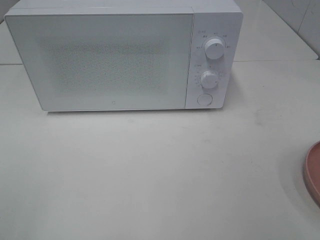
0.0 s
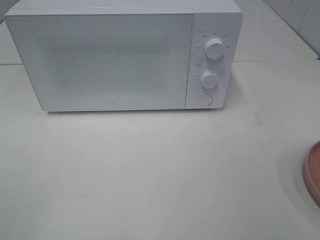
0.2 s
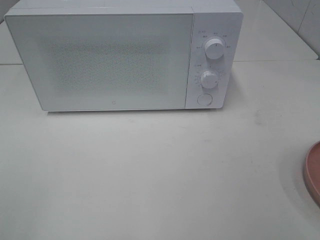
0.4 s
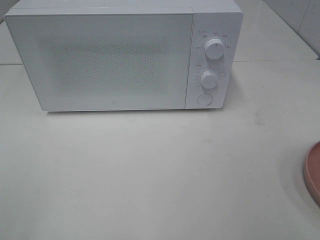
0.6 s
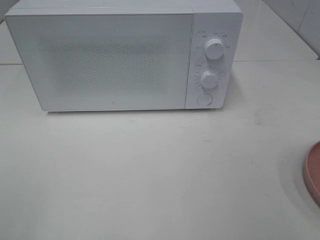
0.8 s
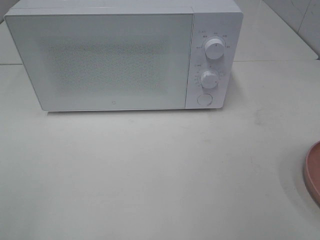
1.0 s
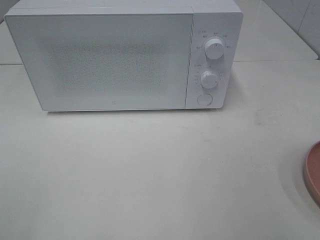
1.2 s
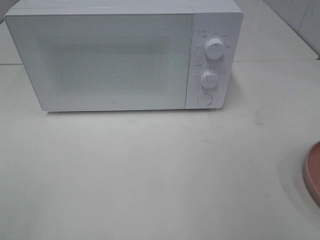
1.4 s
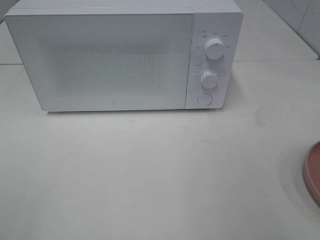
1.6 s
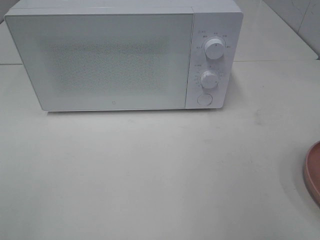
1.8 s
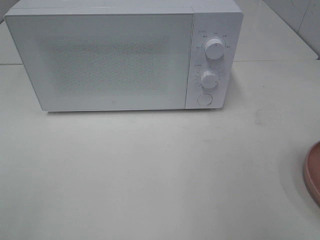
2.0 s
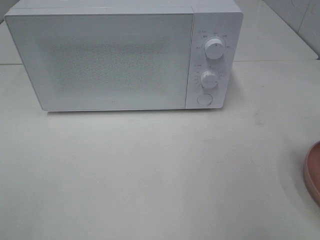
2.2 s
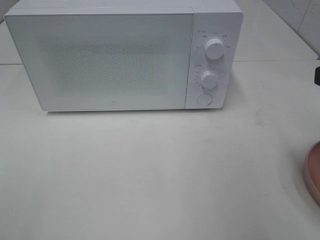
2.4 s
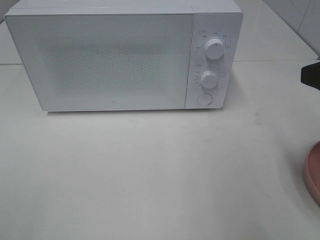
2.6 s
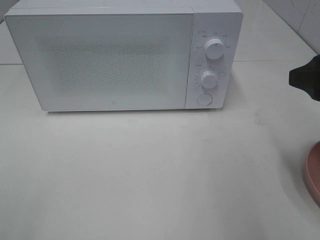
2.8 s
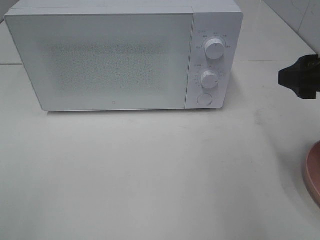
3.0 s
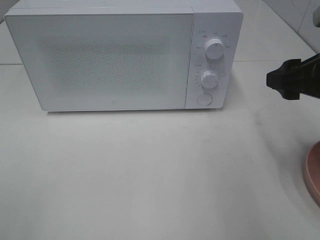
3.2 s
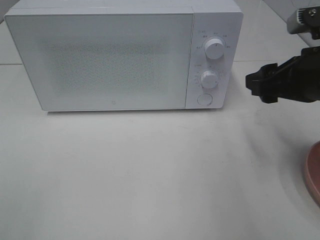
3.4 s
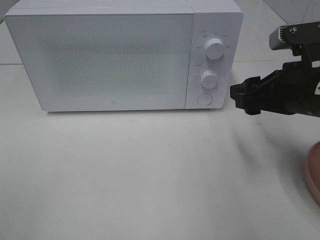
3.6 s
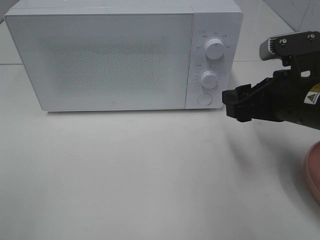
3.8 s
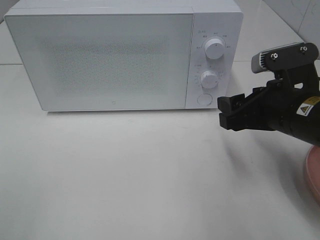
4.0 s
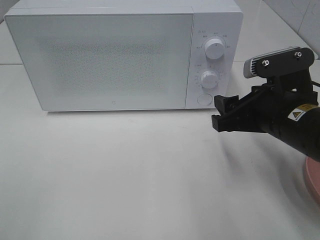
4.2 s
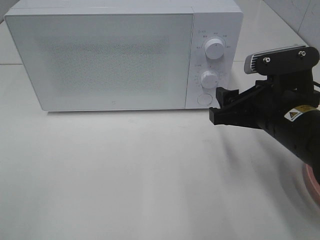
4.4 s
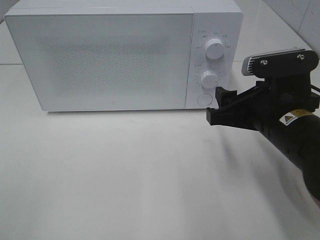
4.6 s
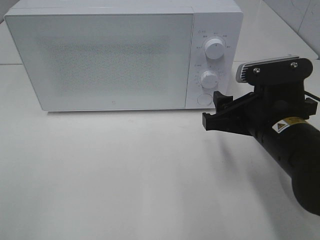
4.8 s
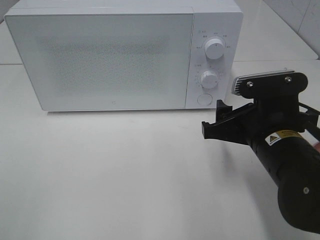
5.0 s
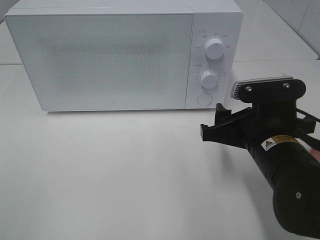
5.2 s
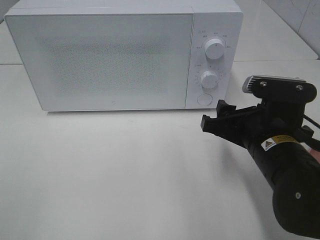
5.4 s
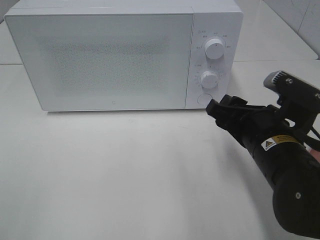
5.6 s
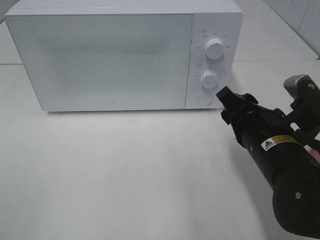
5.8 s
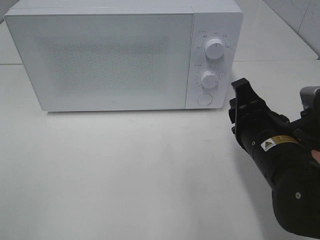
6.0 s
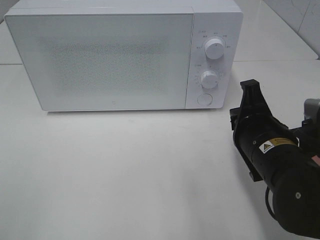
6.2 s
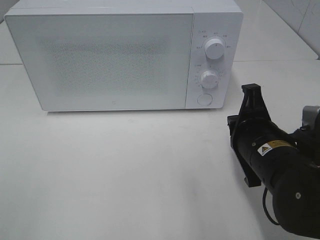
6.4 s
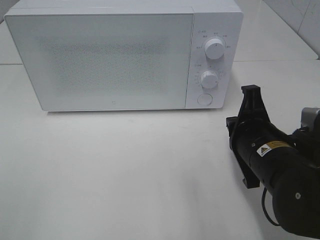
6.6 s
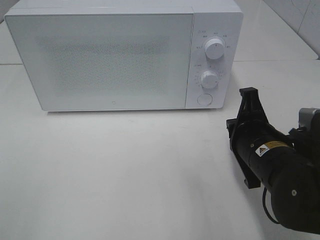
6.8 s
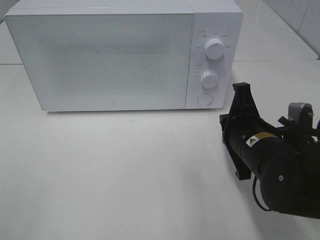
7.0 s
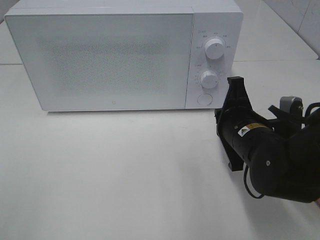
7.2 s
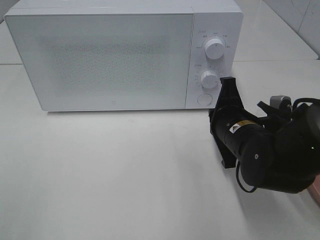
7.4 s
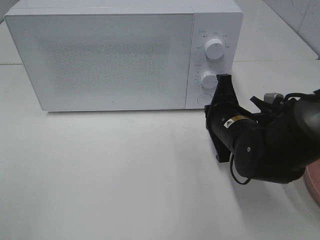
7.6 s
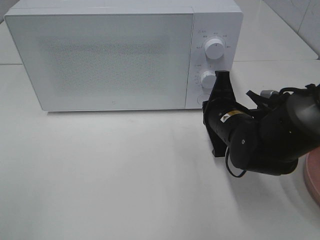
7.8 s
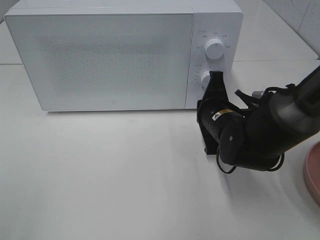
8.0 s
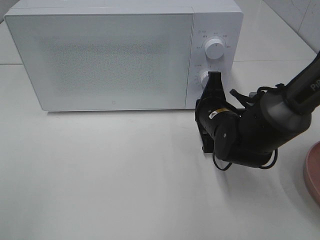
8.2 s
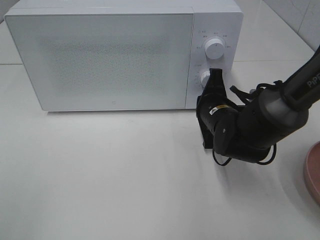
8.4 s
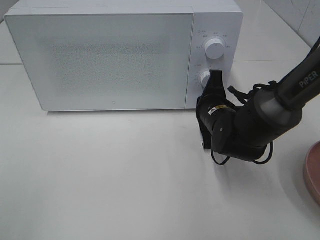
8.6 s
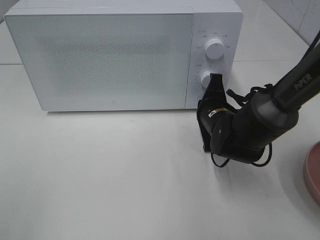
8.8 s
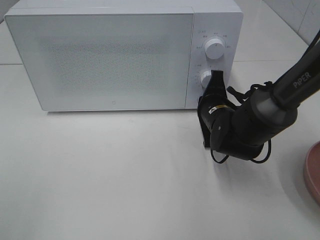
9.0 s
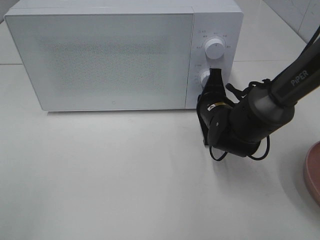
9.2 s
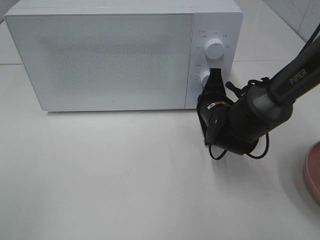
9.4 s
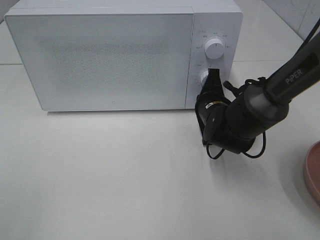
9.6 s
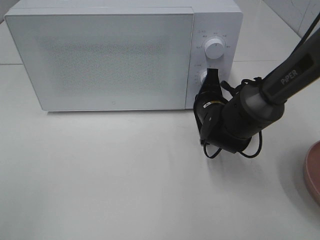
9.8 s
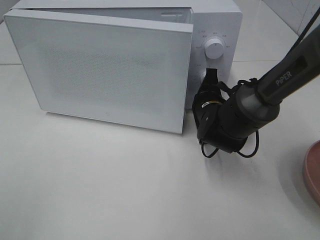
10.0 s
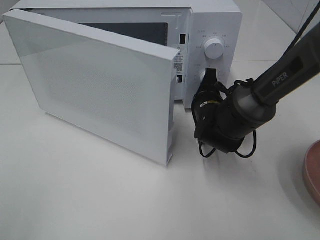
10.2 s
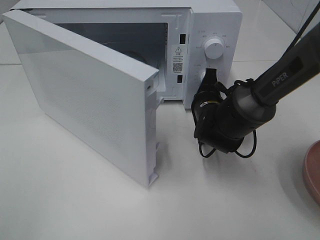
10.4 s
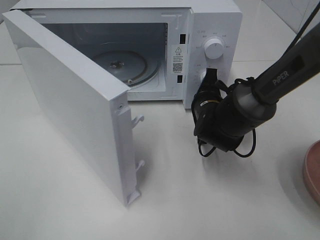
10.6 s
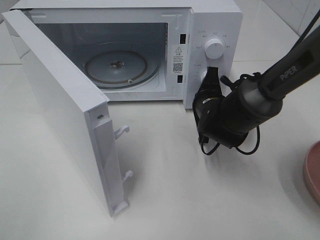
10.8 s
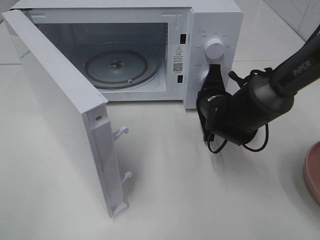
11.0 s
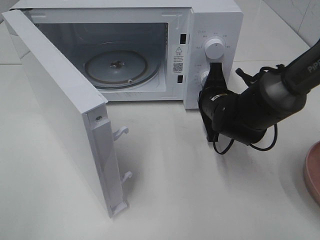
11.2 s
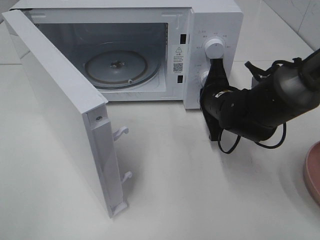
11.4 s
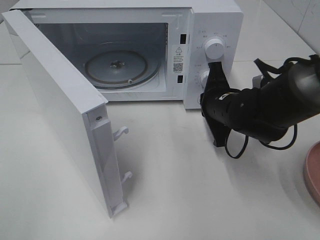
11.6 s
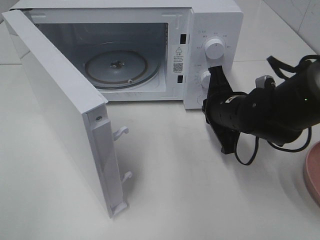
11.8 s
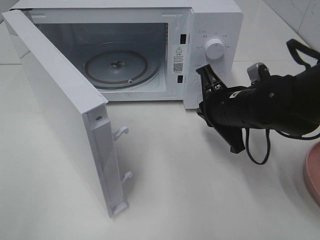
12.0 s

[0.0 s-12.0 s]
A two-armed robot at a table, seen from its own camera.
Task of the whole recording: Heat the burger.
Step, 0.0 to 11.2 s: Right hand: press the switch.
1.6 to 3.0 s: The right gripper heads forward, covering some 15 cm.
3.0 to 4.4 s: The right gripper heads to the left and downward, covering approximately 10 cm.
4.4 to 6.0 s: The right gripper closes up.
6.0 to 7.6 s: The right gripper travels forward by roughly 5 cm, and closes up.
7.6 to 9.0 s: The right gripper heads forward, covering roughly 5 cm.
10.4 to 12.0 s: The right gripper goes some 10 cm backward and upward.

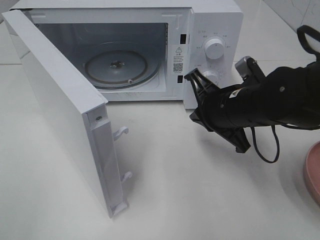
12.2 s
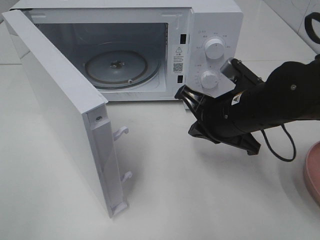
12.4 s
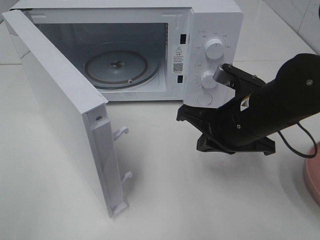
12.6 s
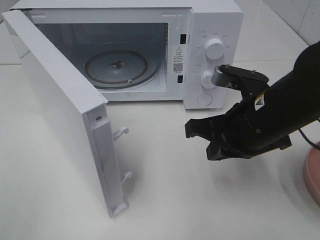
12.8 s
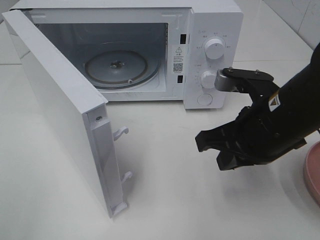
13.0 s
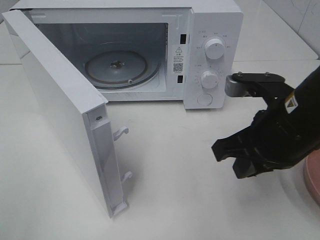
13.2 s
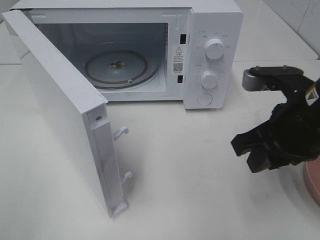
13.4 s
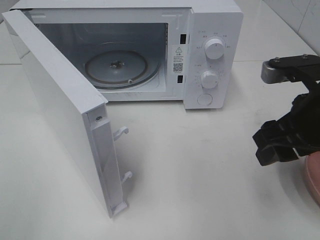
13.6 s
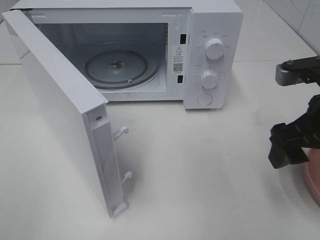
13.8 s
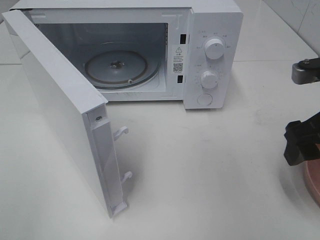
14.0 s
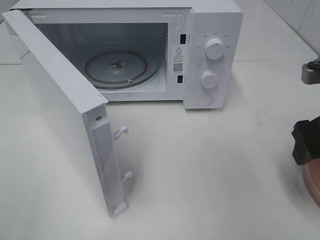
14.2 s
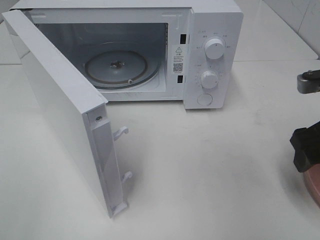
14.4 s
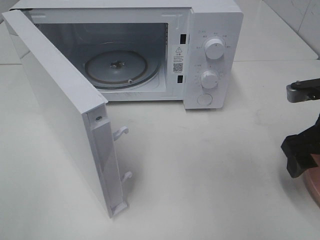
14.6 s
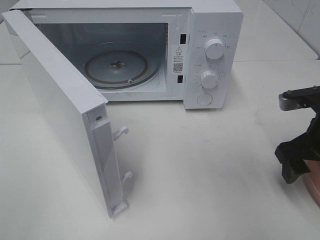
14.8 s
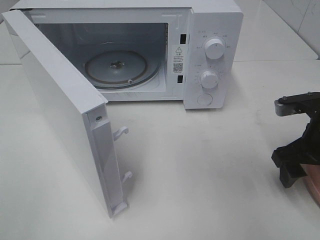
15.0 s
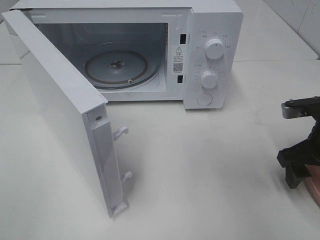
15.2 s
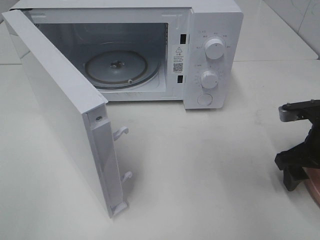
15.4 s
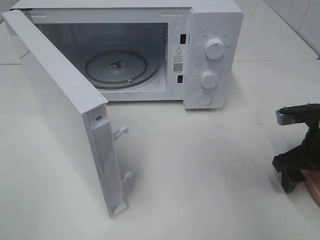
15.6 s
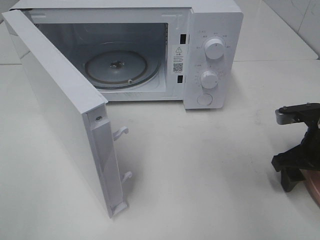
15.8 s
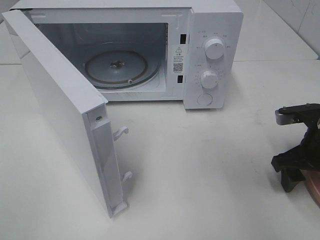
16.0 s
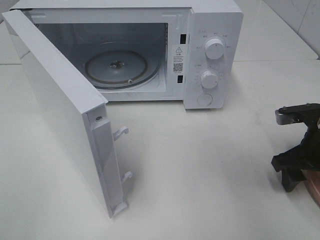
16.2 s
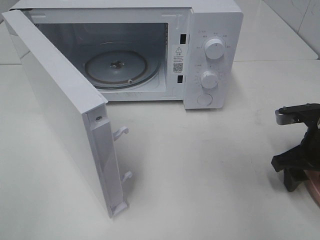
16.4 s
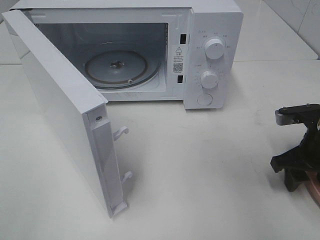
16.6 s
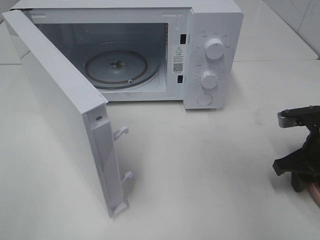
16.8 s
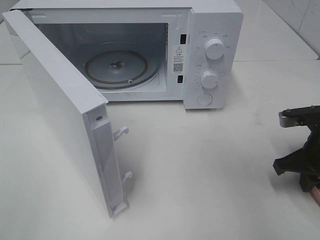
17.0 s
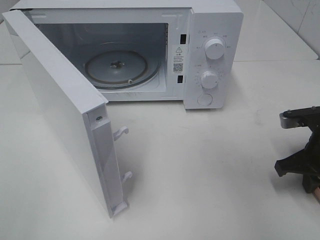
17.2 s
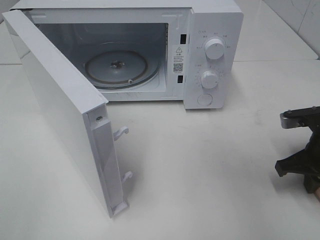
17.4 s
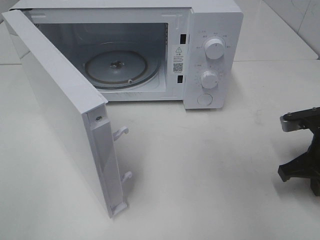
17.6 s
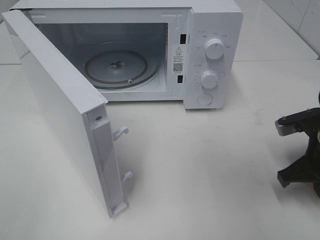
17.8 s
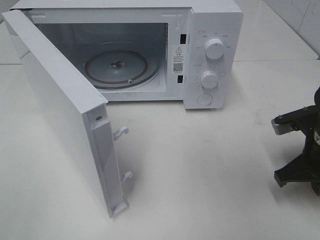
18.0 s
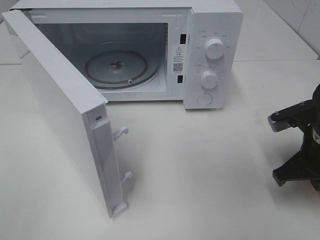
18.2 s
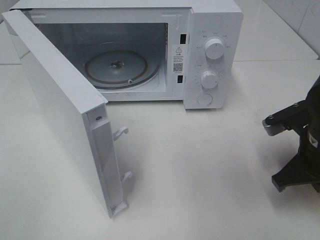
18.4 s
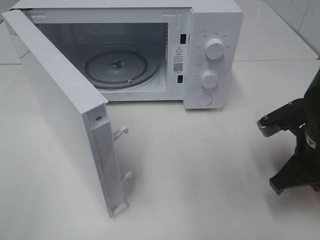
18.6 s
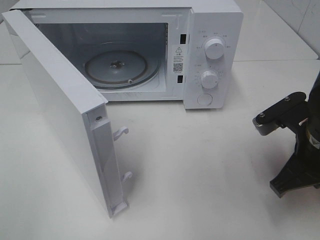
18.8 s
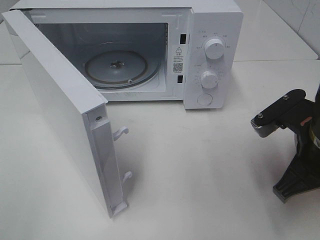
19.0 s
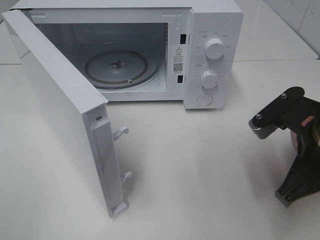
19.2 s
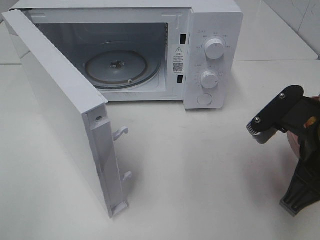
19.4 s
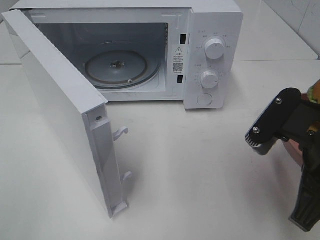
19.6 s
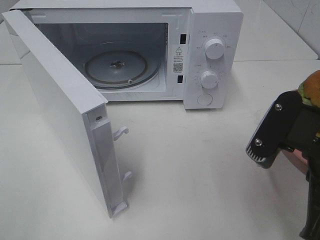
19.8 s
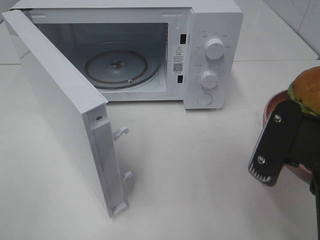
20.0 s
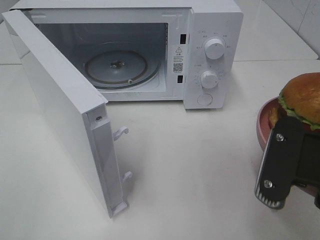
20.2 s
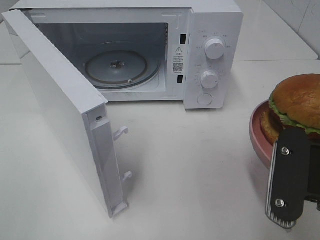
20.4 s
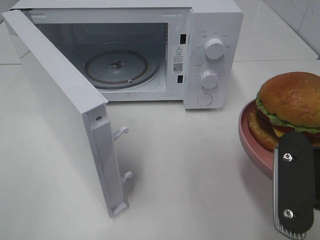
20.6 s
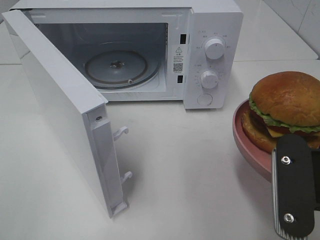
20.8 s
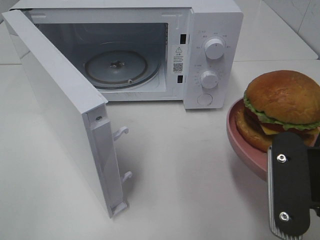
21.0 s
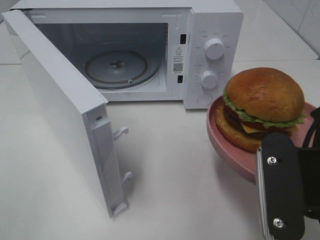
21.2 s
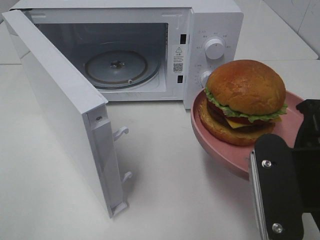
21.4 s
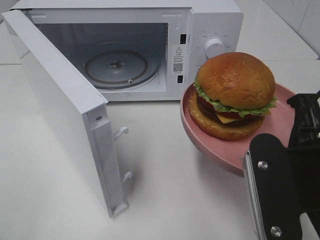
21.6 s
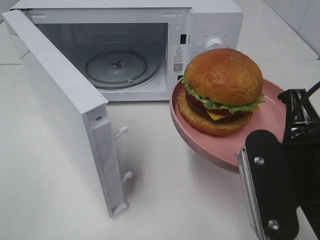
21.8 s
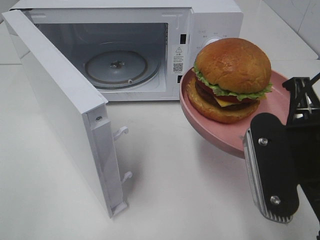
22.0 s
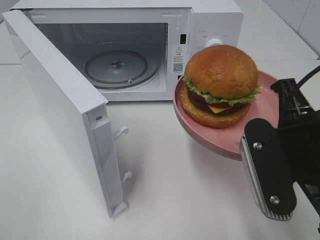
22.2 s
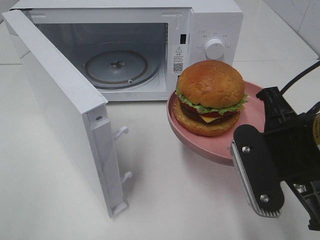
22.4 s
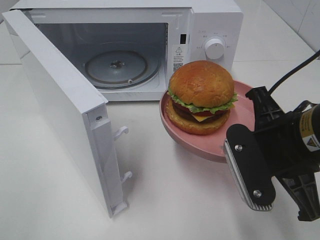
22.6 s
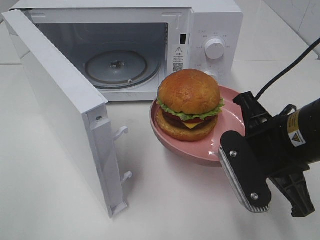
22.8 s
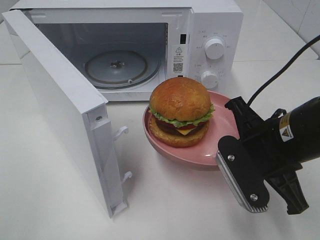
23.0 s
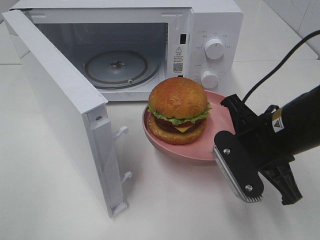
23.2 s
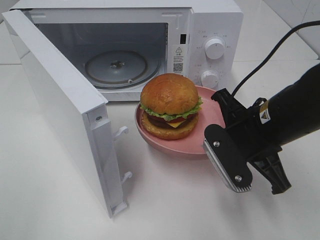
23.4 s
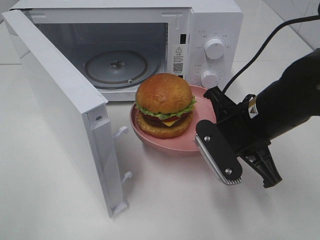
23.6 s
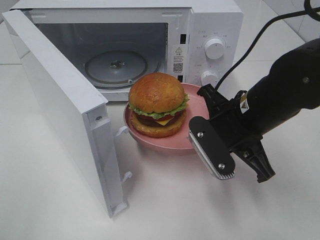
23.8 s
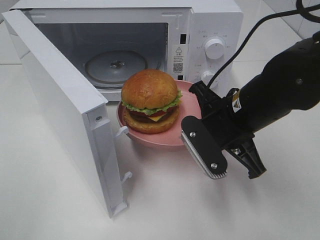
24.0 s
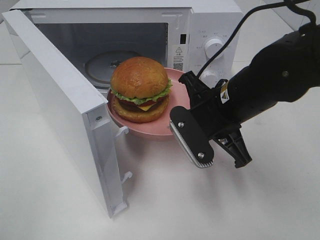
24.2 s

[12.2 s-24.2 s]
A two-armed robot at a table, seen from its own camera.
Task of the whole recording: Heat the burger.
Step, 12.2 to 17.4 s: Right hand: grab the plate with the hamburger.
12.2 to 13.8 s: The right gripper goes about 15 cm to the right, backward and upward, and opens up.
13.8 to 15.2 s: The right gripper travels downward by approximately 10 cm.
15.2 to 16.6 s: The grippers stay close to where they were, moving slightly.
16.6 to 18.2 s: The right gripper ends up about 5 cm from where it was, and closes.
18.2 to 19.8 s: The right gripper goes some 15 cm backward, upward and to the left.
21.2 to 22.6 s: The right gripper is displaced forward by about 10 cm.
22.6 to 24.2 s: The right gripper goes approximately 10 cm forward and to the left.
